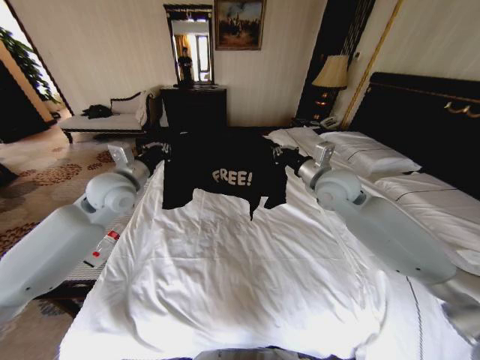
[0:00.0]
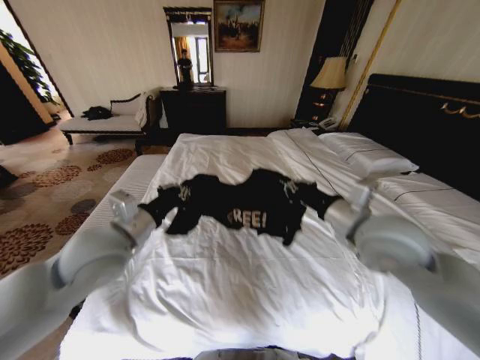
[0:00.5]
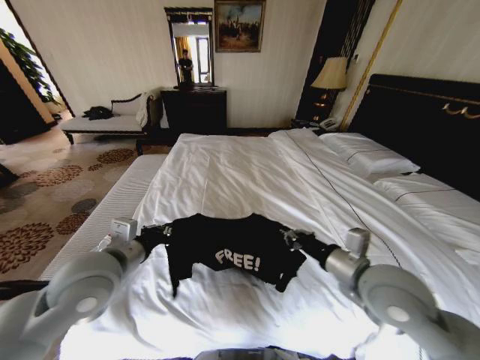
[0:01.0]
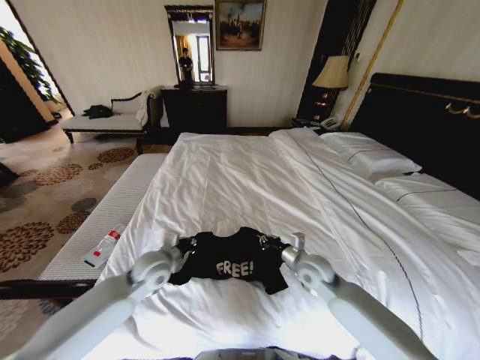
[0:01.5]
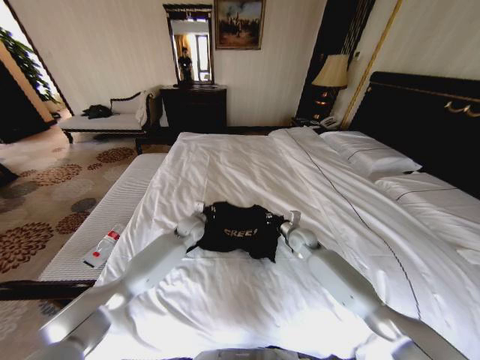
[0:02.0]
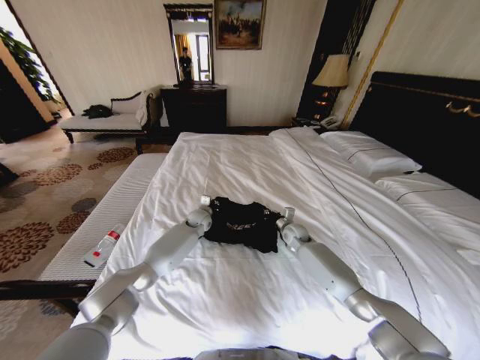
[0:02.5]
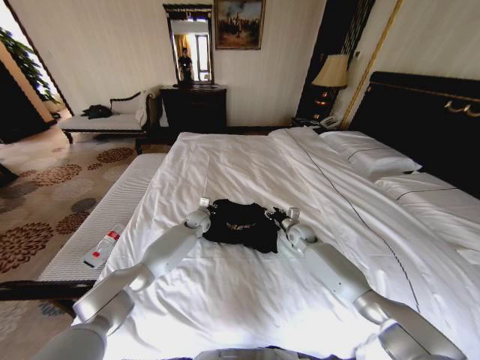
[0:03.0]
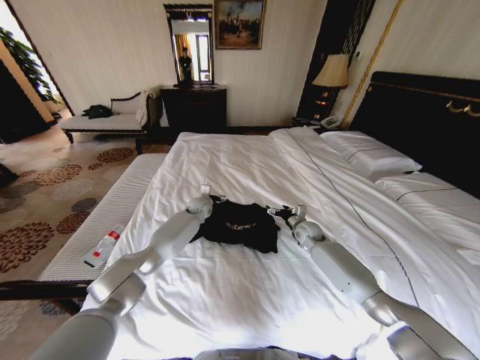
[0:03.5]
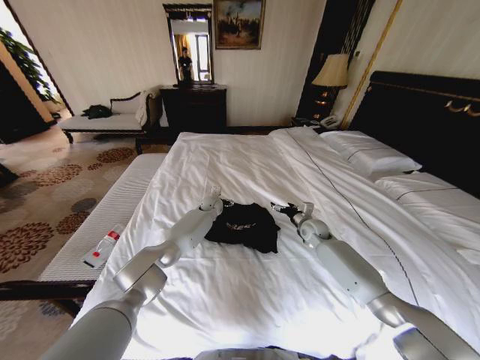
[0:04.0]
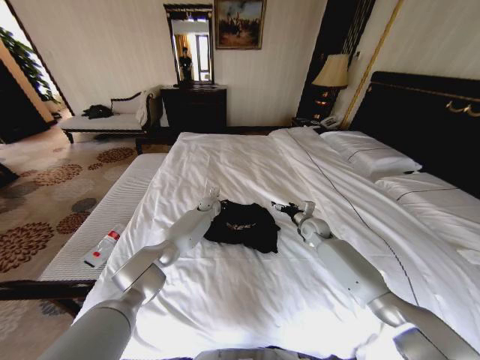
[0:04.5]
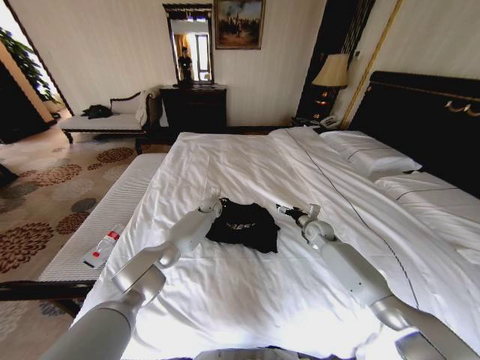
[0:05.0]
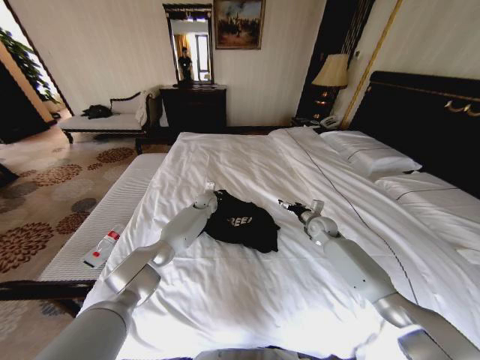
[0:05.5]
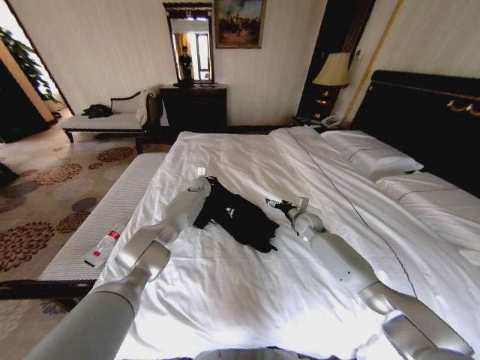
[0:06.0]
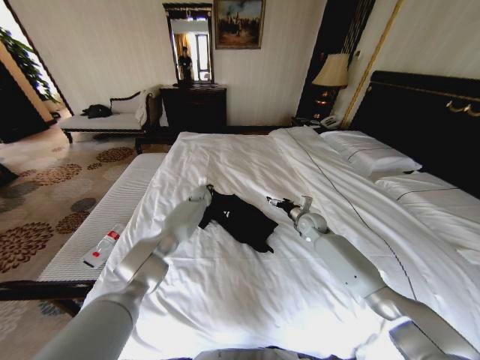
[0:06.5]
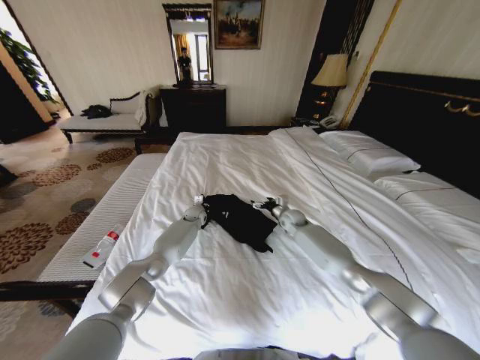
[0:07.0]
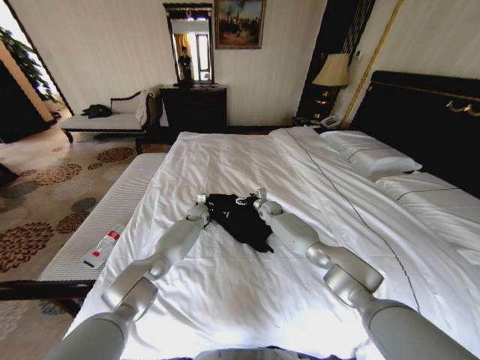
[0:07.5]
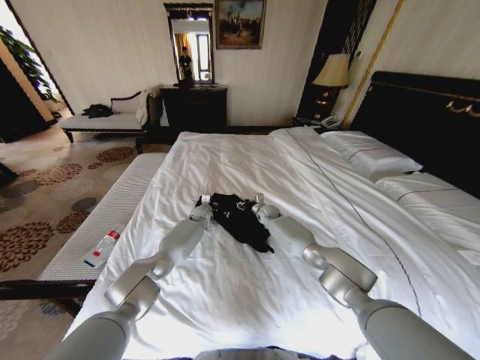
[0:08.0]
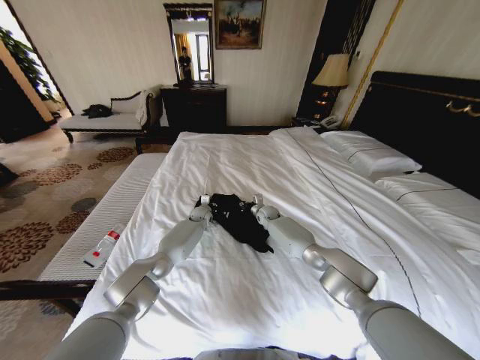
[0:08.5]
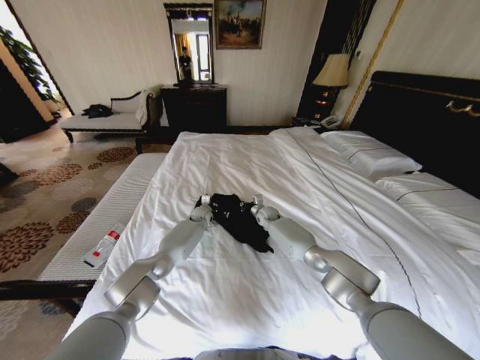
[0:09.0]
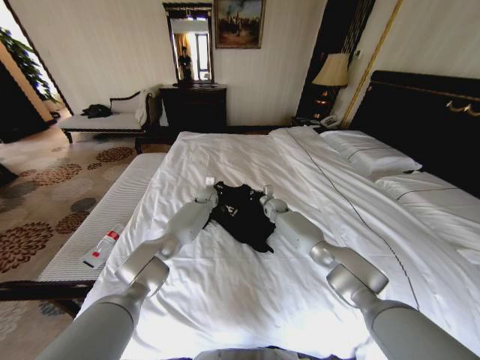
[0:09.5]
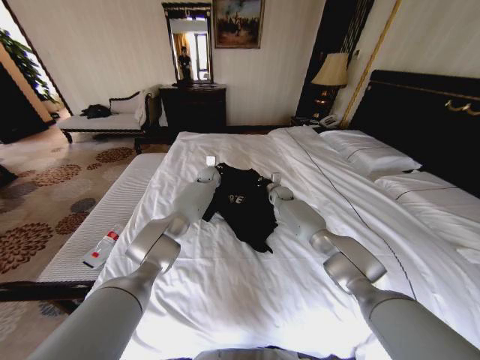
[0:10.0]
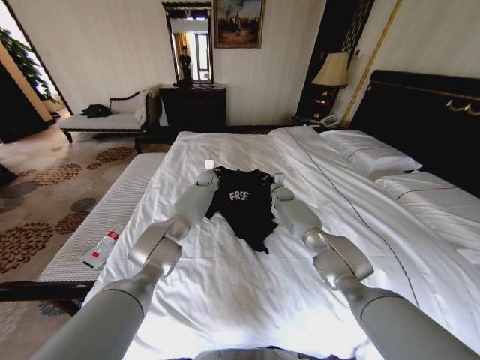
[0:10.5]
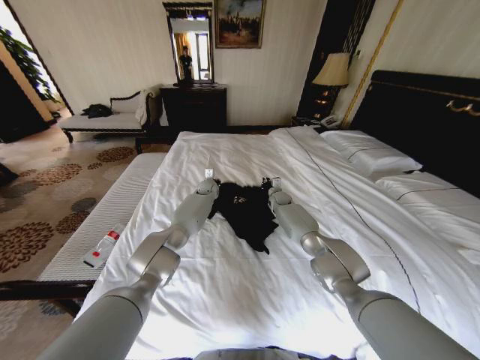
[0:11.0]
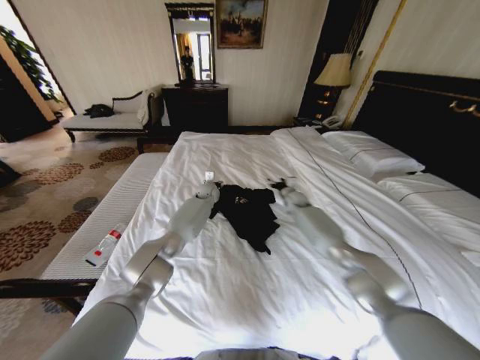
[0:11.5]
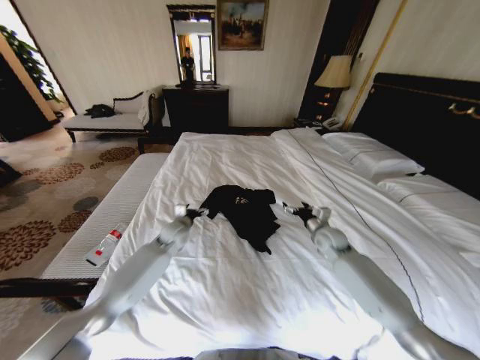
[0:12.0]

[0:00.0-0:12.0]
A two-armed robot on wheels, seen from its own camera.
Task of the whole recording: Fold the clothes on the bed.
0:00.0 to 0:02.0: The left gripper moves downward and to the right, some 30 cm, and reaches approximately 20 cm backward, then returns. Meanwhile the right gripper heads downward, covering some 25 cm.
0:02.0 to 0:04.0: The left gripper travels forward and to the right by some 15 cm, and opens up; the right gripper heads to the right, covering approximately 5 cm, and opens its fingers.
0:04.0 to 0:06.0: The left gripper goes some 10 cm forward, to the left and upward, and closes.
0:06.0 to 0:08.0: The right gripper travels to the left and forward by roughly 15 cm, while the left gripper is displaced downward and backward by roughly 15 cm.
0:08.0 to 0:10.0: The left gripper is displaced upward and forward by approximately 15 cm. The right gripper travels upward by some 10 cm, and closes its fingers.
0:10.0 to 0:12.0: The right gripper heads backward and to the right, covering about 25 cm, and opens. Meanwhile the left gripper goes about 25 cm backward, to the left and downward, and opens its fingers.

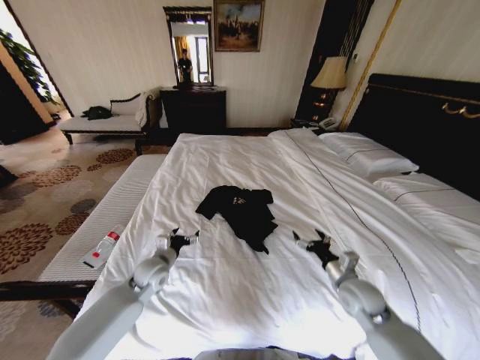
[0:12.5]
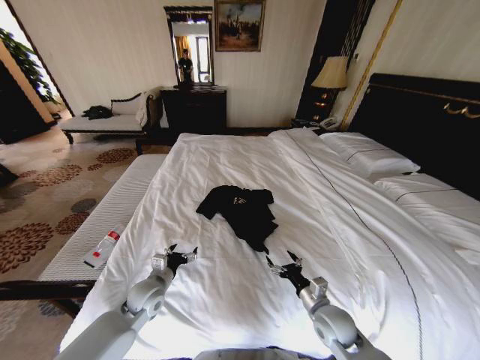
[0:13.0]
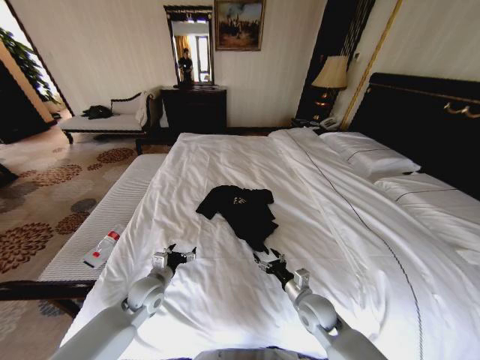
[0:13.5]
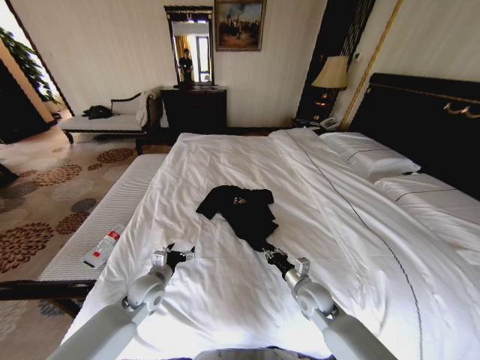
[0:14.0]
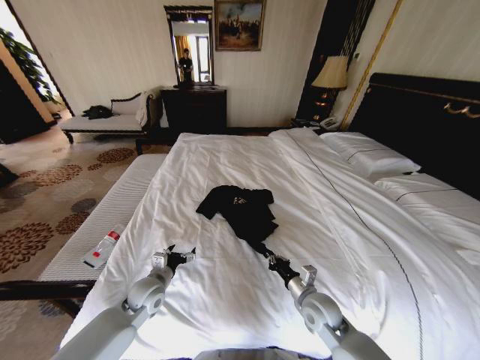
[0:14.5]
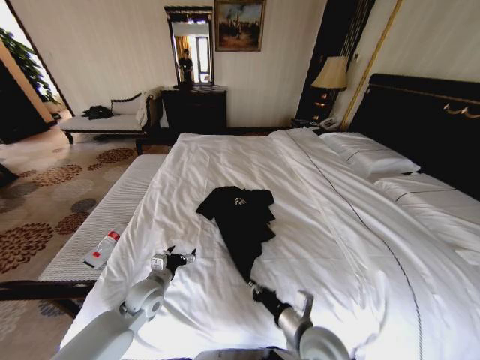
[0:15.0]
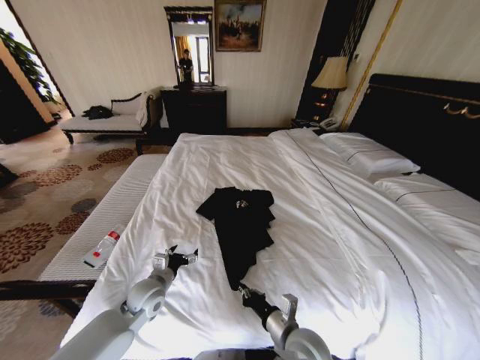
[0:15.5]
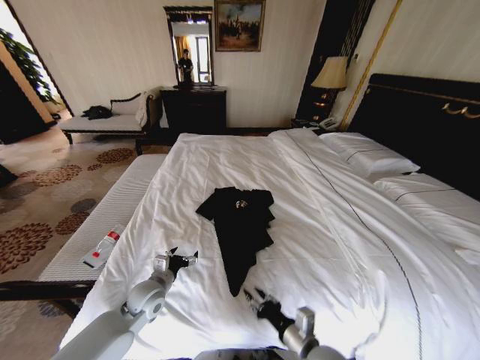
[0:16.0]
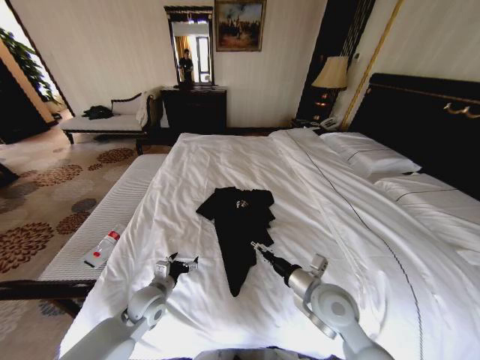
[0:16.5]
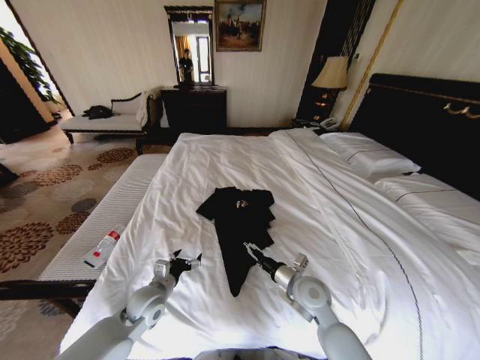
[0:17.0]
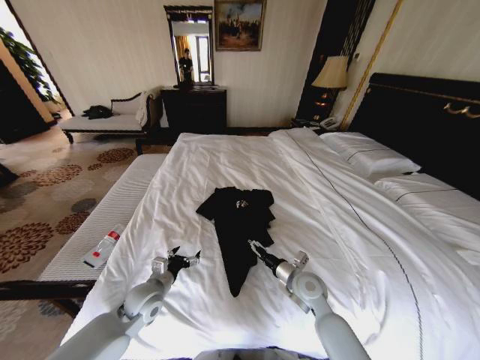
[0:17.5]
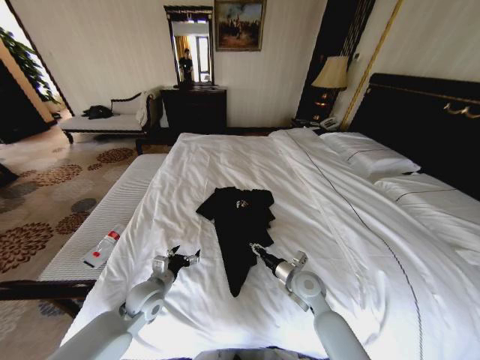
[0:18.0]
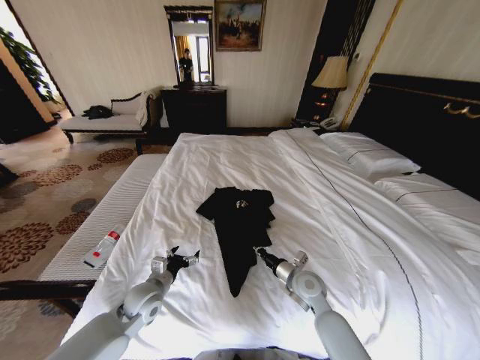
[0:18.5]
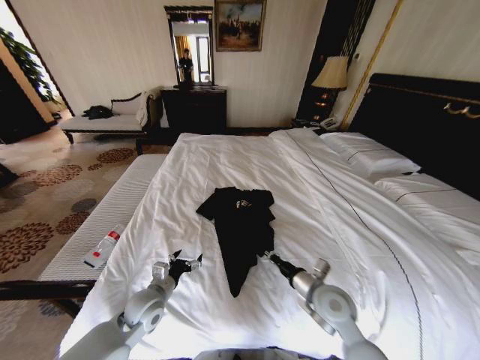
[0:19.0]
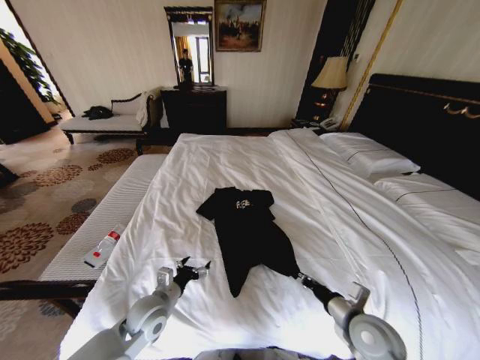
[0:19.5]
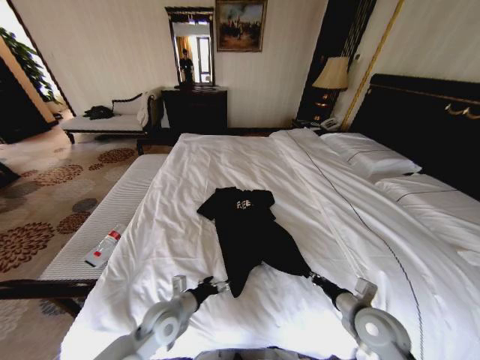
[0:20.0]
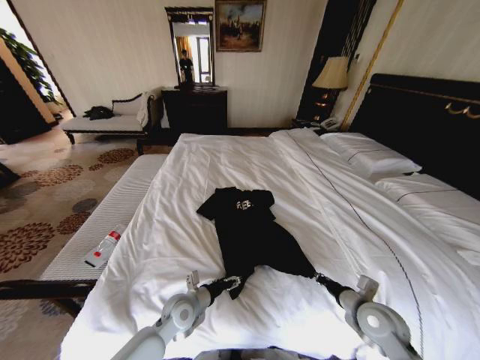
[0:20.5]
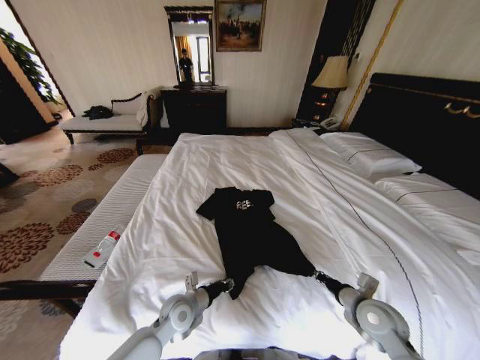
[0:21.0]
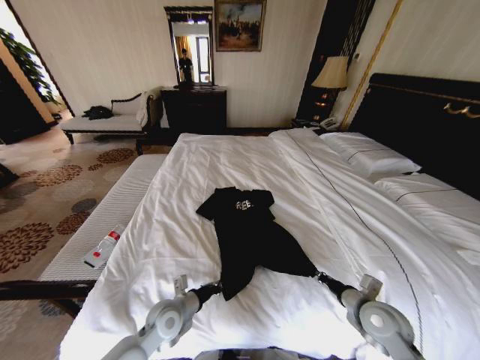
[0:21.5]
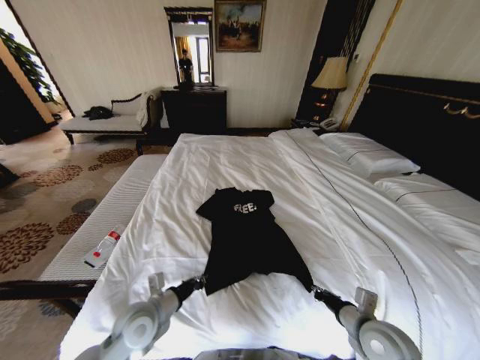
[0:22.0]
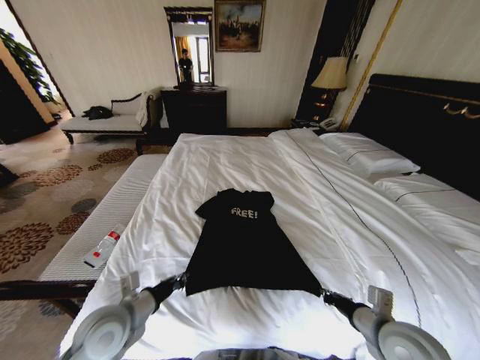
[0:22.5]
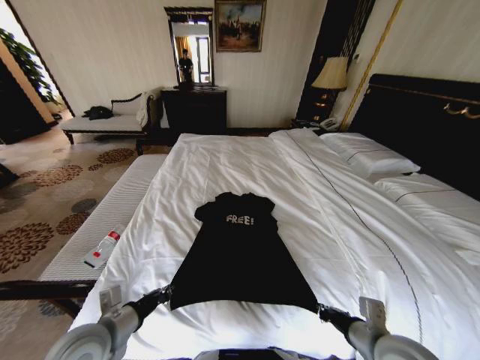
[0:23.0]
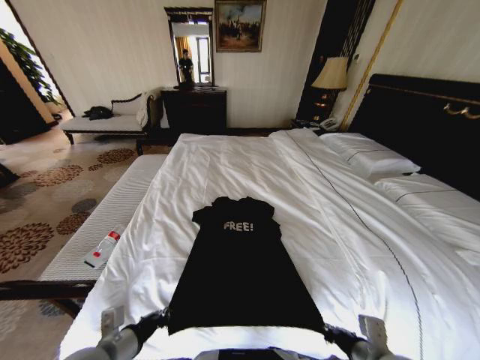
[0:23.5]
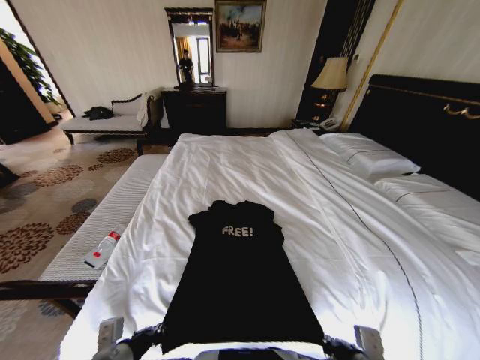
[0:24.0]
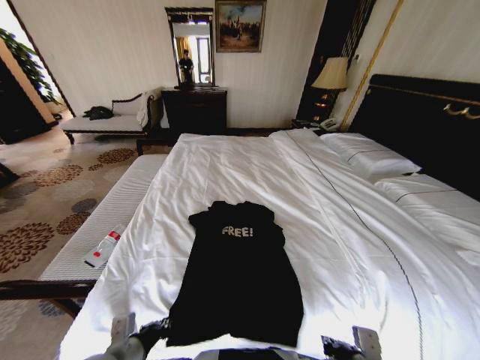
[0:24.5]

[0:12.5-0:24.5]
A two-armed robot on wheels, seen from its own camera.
Task of the whole recording: Fold the clothes on the bed.
0:12.5 to 0:14.5: The right gripper travels to the left by approximately 10 cm, and closes; the left gripper travels backward by roughly 5 cm.
0:14.5 to 0:16.5: The right gripper moves upward, about 10 cm, goes backward and returns, about 10 cm each way, and opens its fingers.
0:16.5 to 0:18.5: The right gripper travels downward and forward by approximately 10 cm, and closes.
0:18.5 to 0:20.5: The left gripper moves to the right, approximately 10 cm. The right gripper shifts some 15 cm to the right and backward.
0:20.5 to 0:22.5: The left gripper shifts approximately 20 cm upward, to the left and backward, and closes its fingers. The right gripper moves upward and backward, some 10 cm.
0:22.5 to 0:24.5: The left gripper shifts some 5 cm backward. The right gripper shifts about 10 cm backward and to the left.

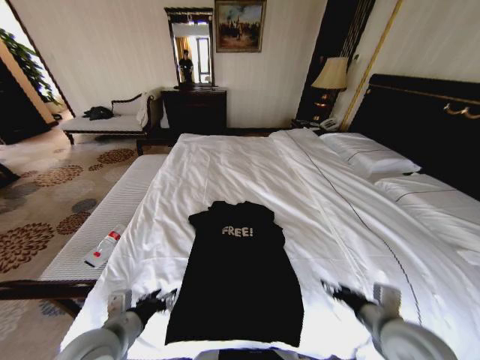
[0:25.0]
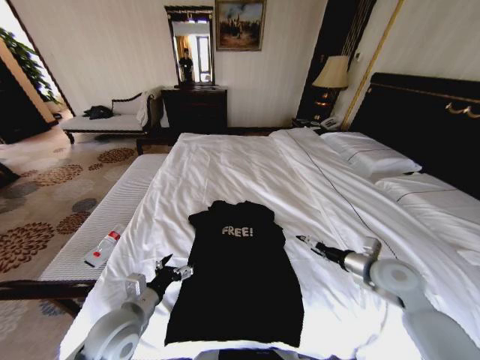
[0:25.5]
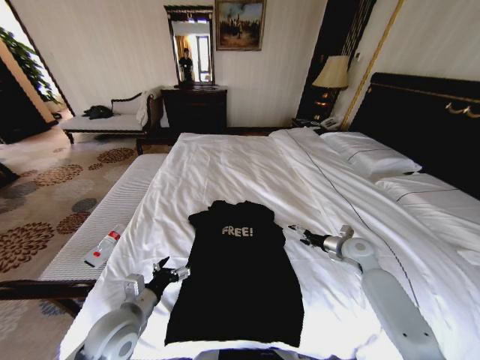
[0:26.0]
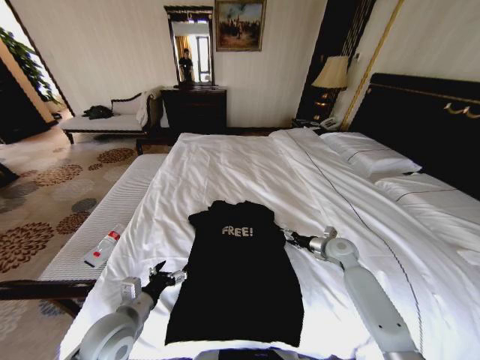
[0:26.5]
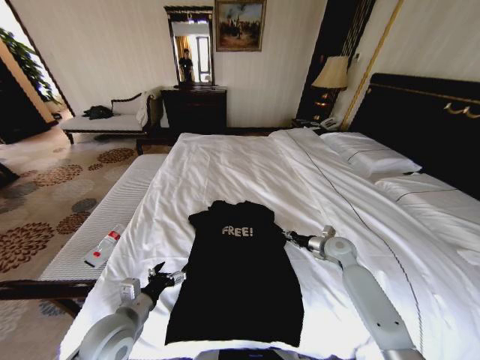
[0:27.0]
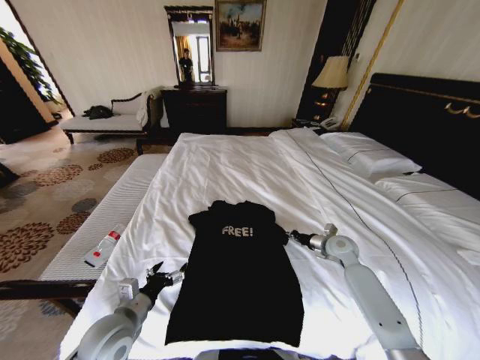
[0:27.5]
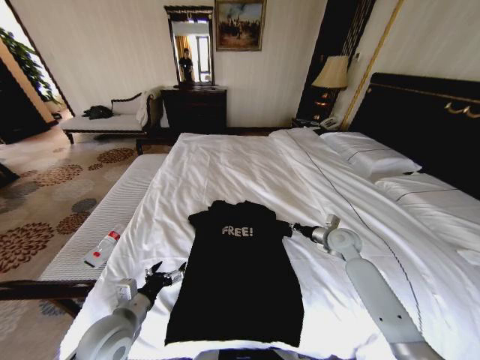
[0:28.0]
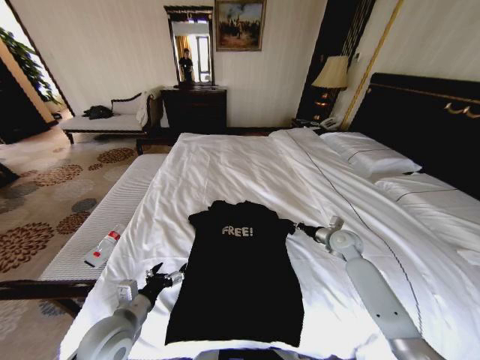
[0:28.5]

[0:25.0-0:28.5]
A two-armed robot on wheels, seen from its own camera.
Task of the whole recording: Fold the clothes on the bed.
0:25.0 to 0:27.0: The right gripper is displaced forward by some 25 cm, and opens and closes again. The left gripper shifts by about 5 cm, and opens its fingers.
0:27.0 to 0:28.5: The right gripper closes its fingers.
